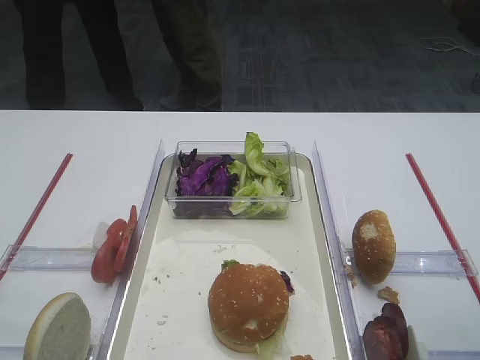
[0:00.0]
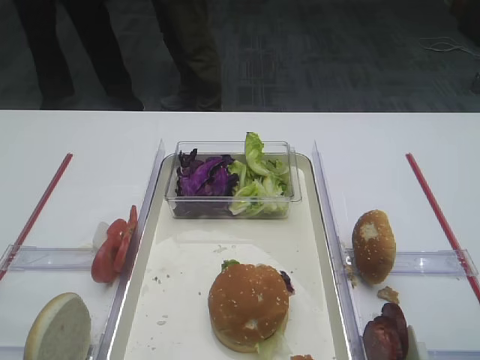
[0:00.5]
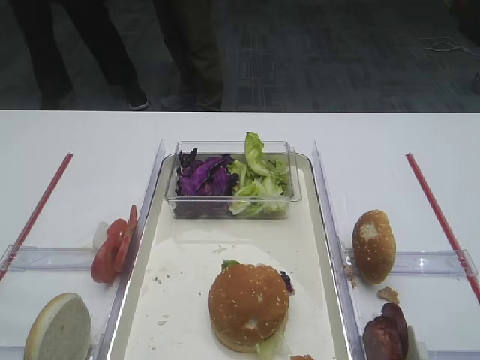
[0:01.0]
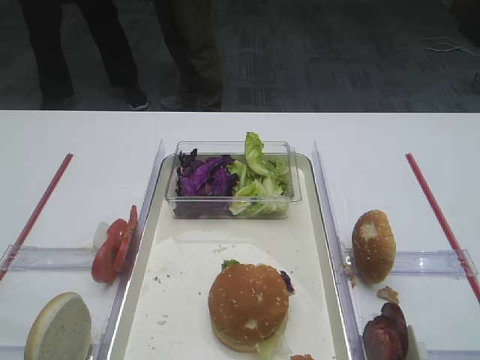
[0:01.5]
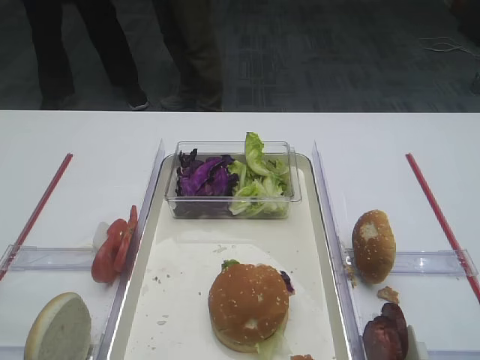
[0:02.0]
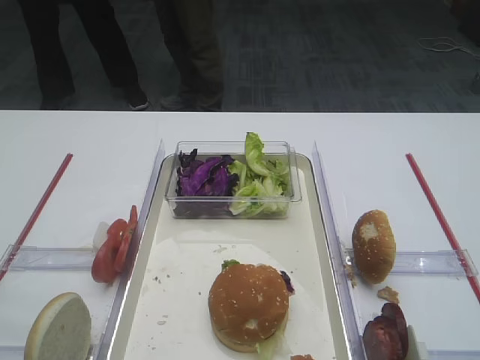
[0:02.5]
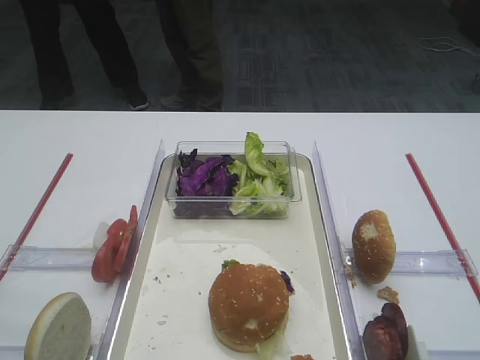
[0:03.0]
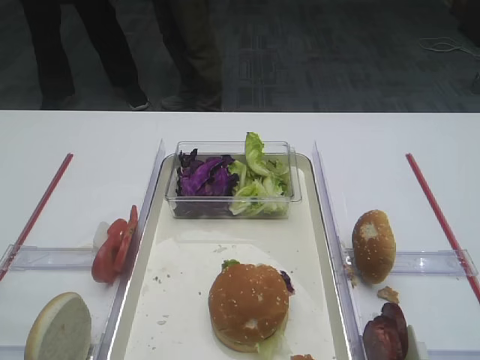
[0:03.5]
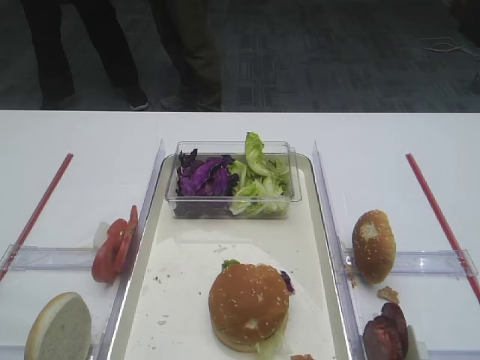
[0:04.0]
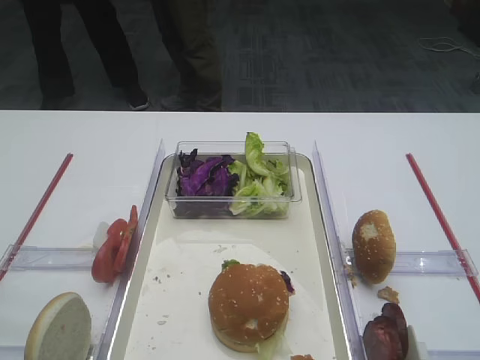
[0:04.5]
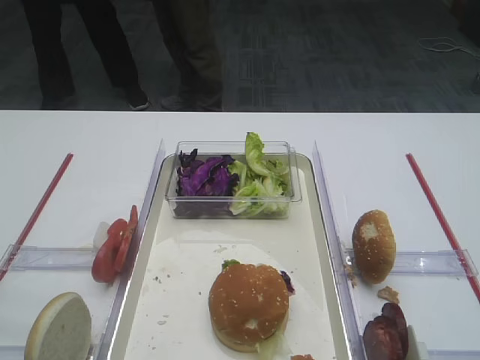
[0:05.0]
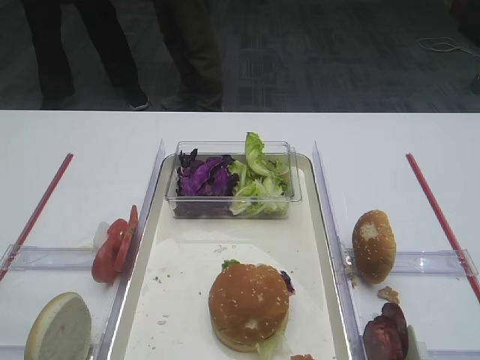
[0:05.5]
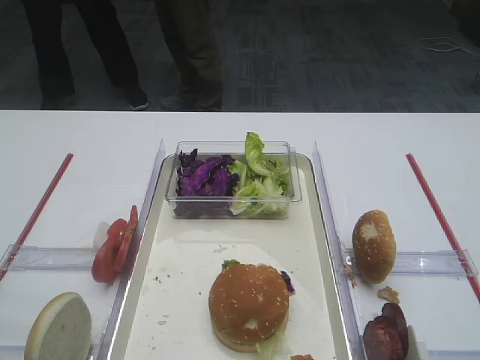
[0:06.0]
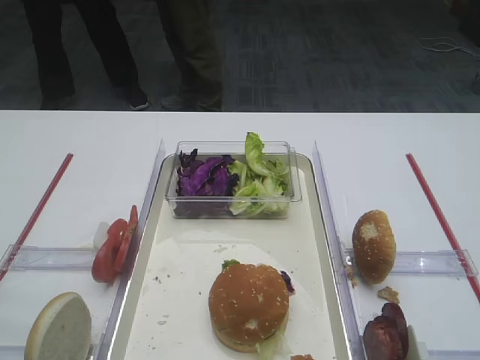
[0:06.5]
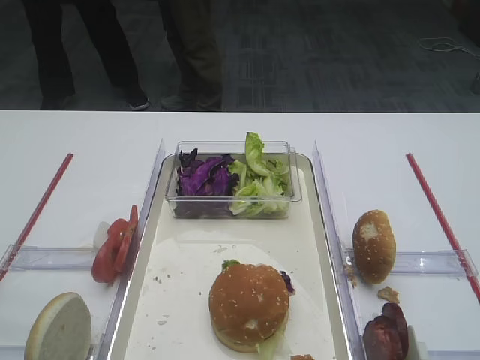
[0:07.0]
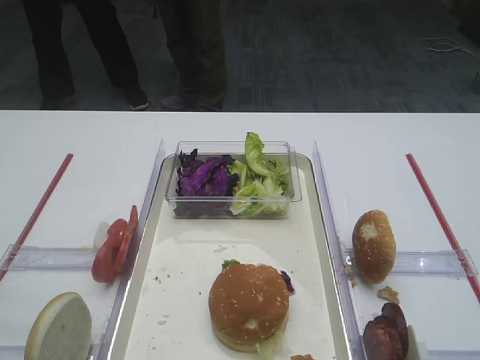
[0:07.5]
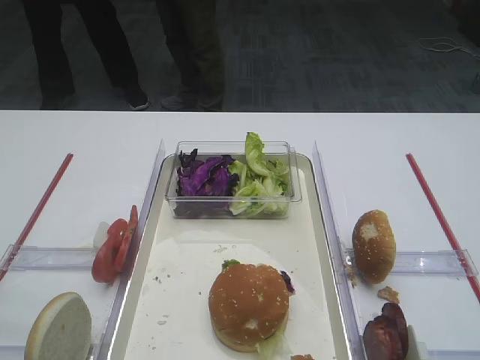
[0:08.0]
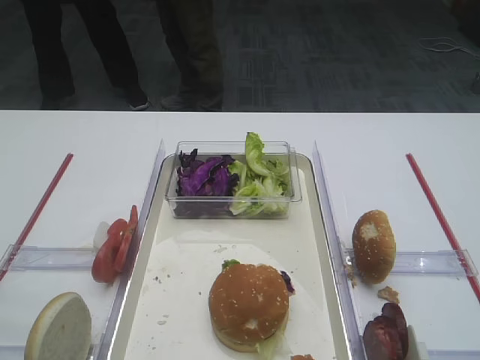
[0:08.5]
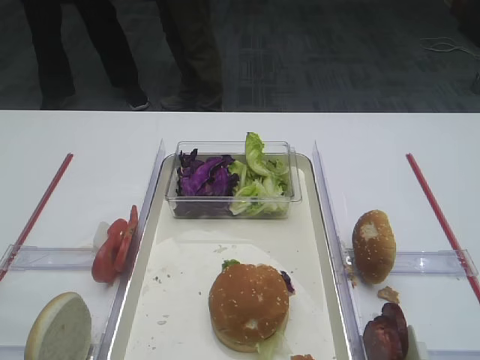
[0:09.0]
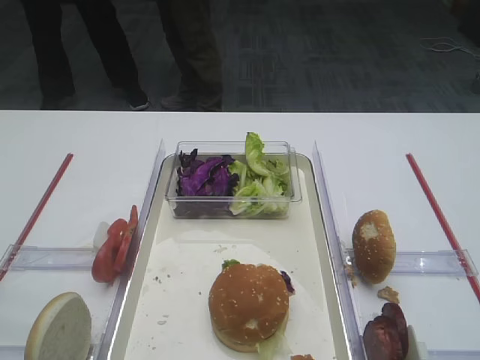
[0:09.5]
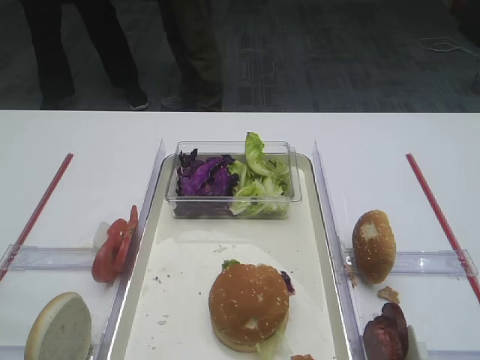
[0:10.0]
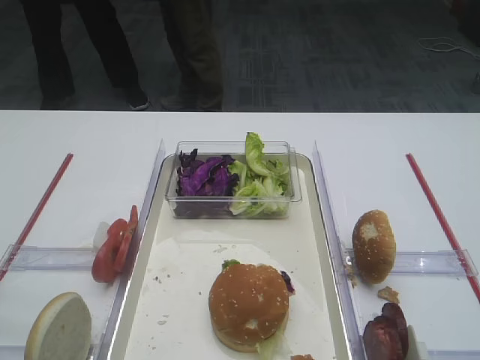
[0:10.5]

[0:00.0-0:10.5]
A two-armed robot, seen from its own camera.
4.0 to 10.5 s: Neither gripper changes place.

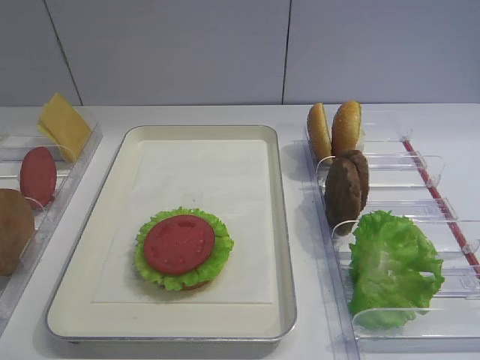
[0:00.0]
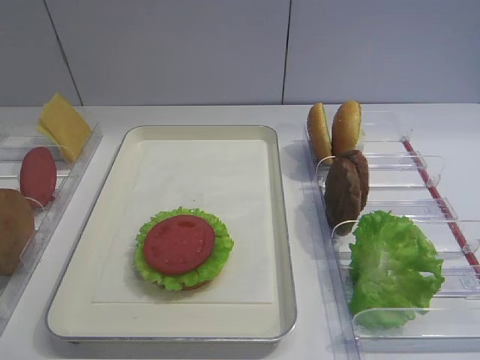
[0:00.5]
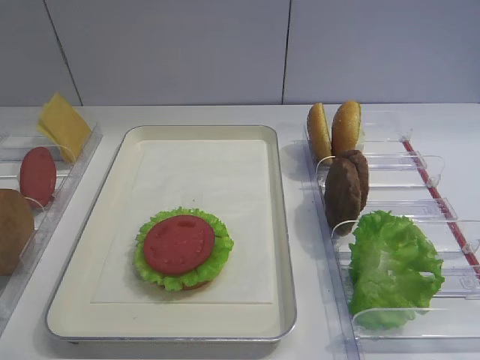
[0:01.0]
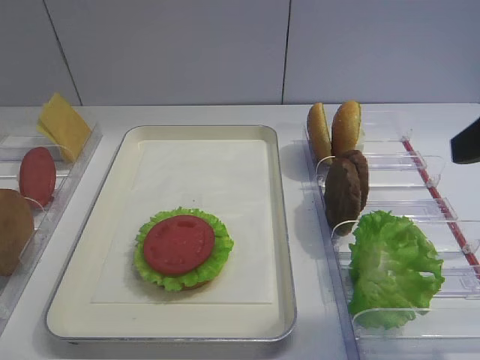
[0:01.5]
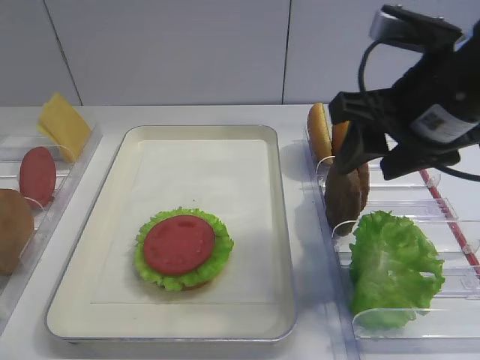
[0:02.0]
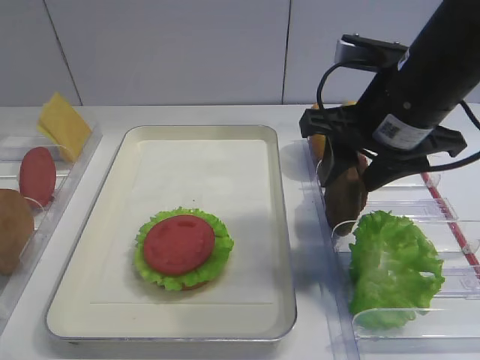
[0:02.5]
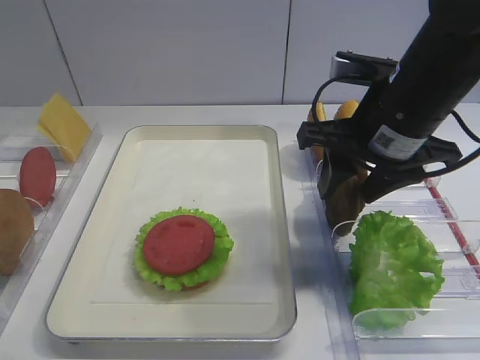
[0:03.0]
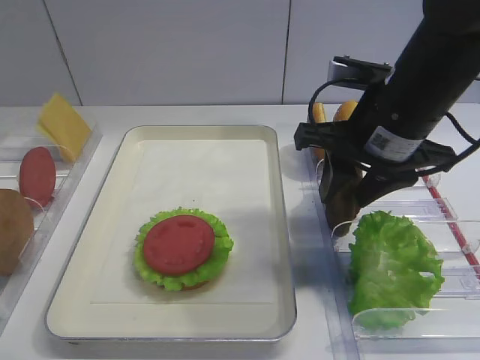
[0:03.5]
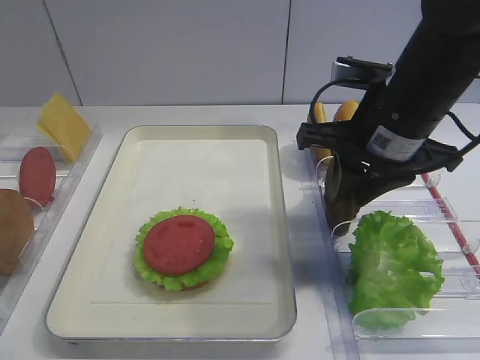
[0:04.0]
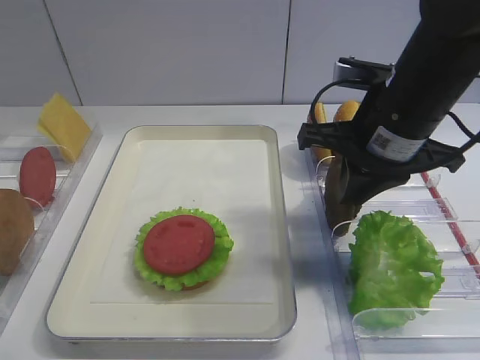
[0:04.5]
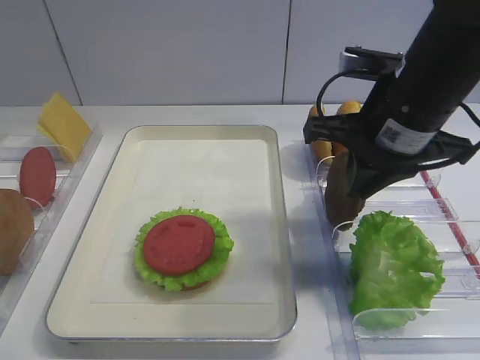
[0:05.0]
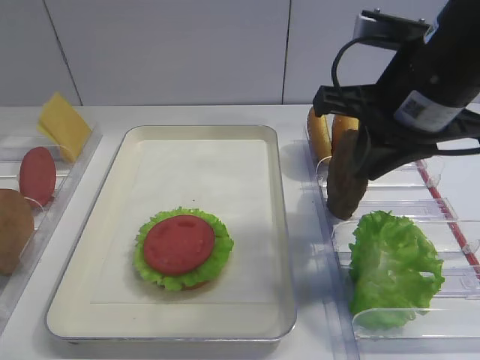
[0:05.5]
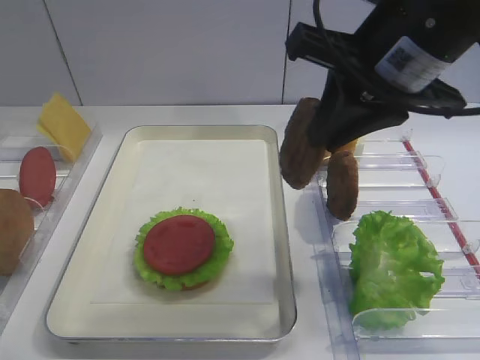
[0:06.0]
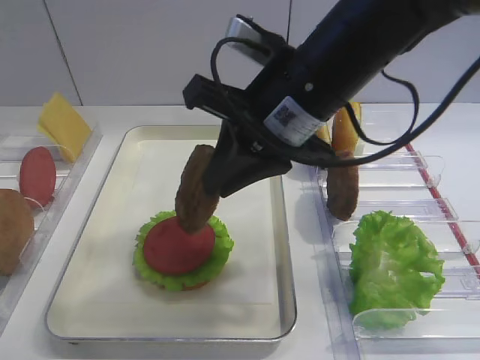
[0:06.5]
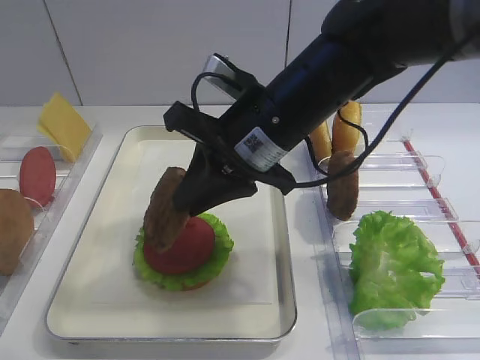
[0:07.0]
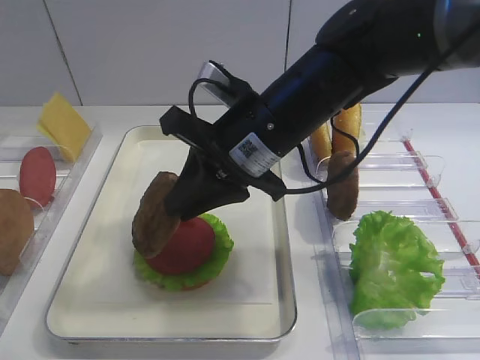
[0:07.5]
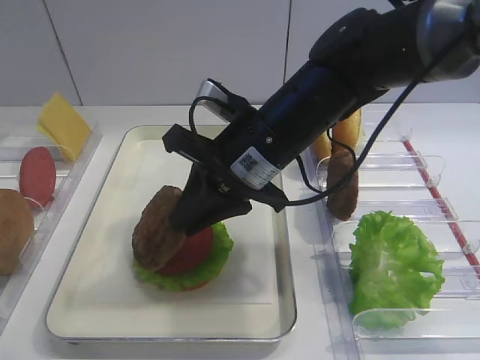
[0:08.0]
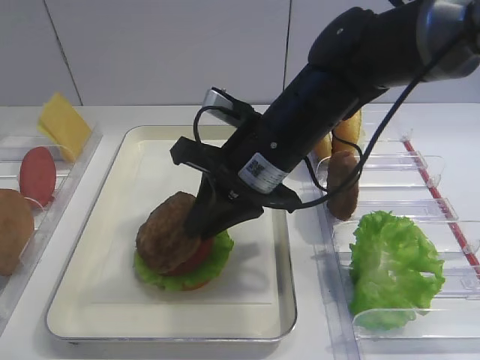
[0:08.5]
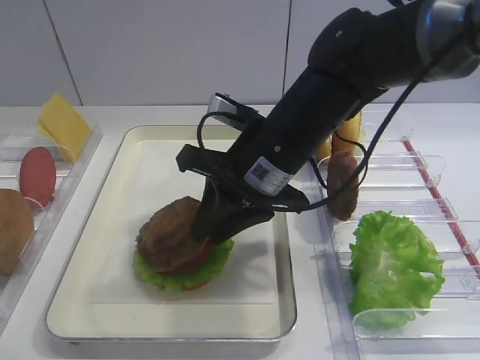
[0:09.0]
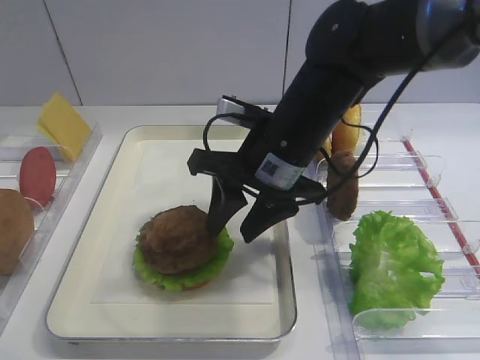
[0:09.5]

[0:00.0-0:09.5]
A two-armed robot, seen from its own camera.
Step, 0.0 to 5.5 s: Pick up the cutlet with the right gripper.
2.0 to 4.0 s: The right gripper moves roughly 5 cm, and closes.
4.0 to 5.5 s: The right gripper moves roughly 5 cm, and closes.
5.5 to 7.5 s: The right gripper shifts roughly 15 cm to the left and downward.
7.5 to 9.5 s: The right gripper opens up.

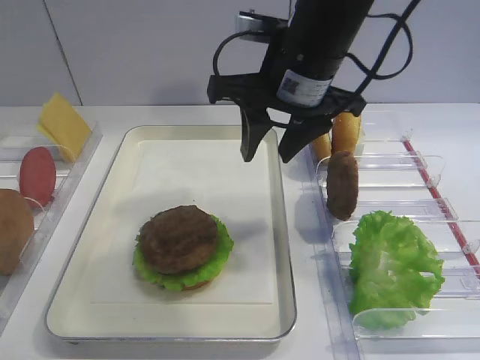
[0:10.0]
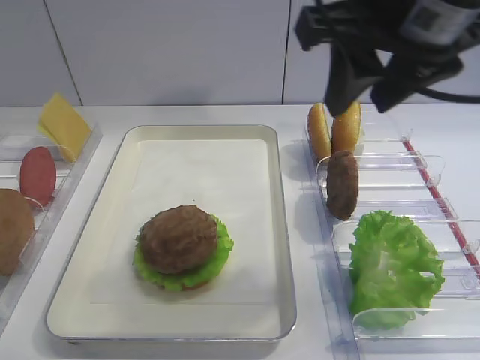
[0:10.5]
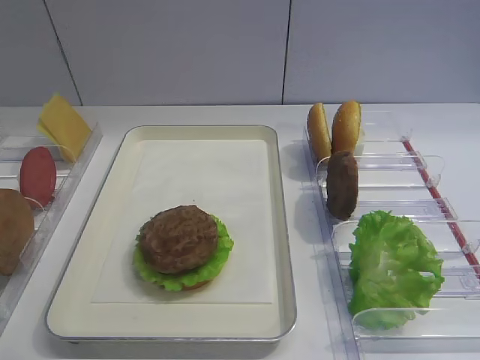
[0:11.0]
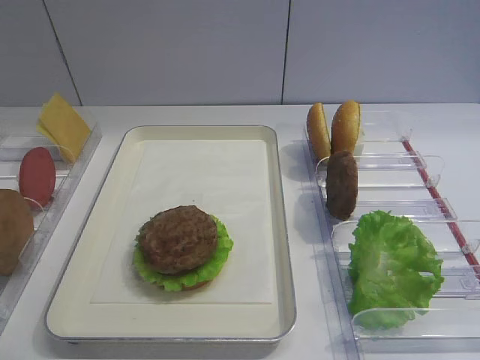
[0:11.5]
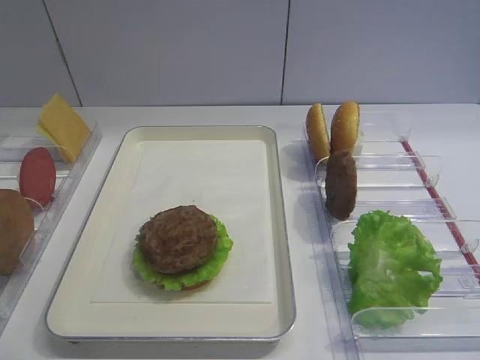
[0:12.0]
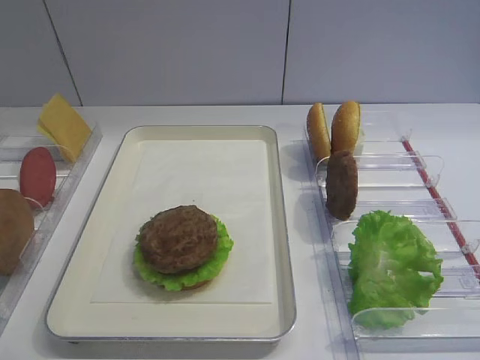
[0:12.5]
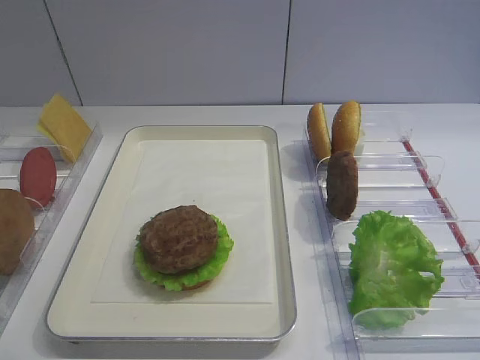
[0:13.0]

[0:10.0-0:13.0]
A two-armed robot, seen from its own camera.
10.0 to 11.5 s: The right gripper travels backward and to the right by about 35 cm.

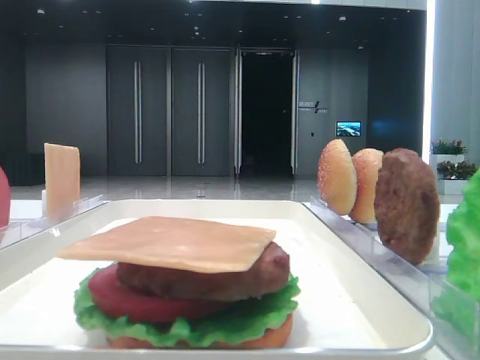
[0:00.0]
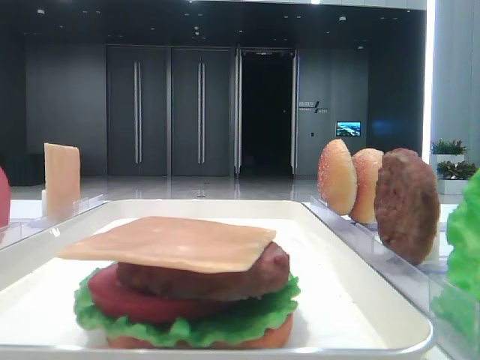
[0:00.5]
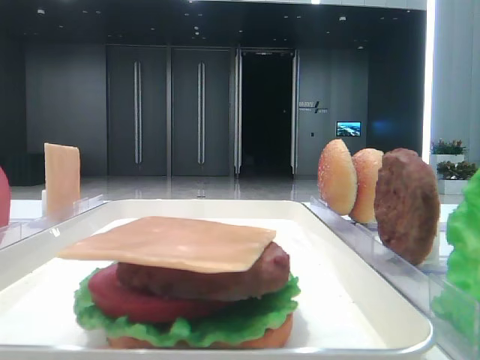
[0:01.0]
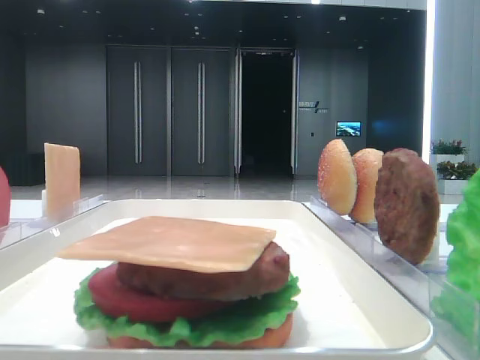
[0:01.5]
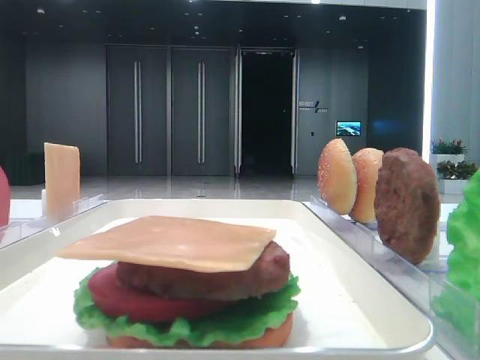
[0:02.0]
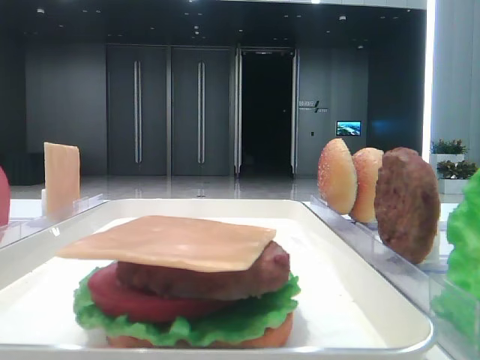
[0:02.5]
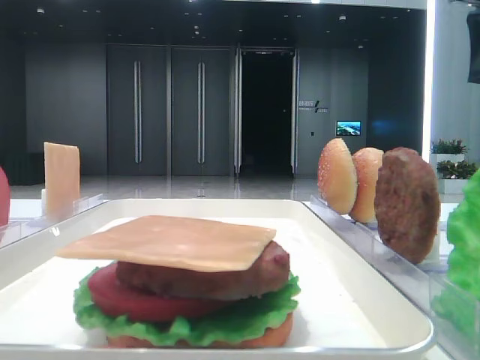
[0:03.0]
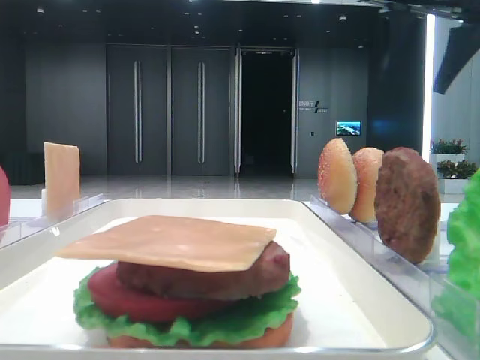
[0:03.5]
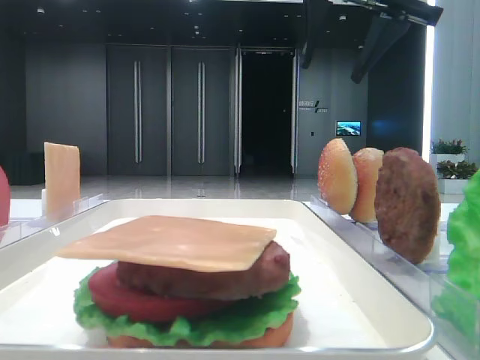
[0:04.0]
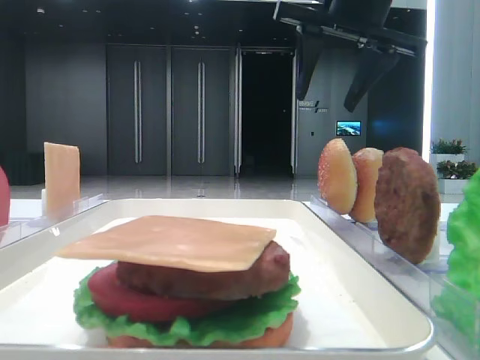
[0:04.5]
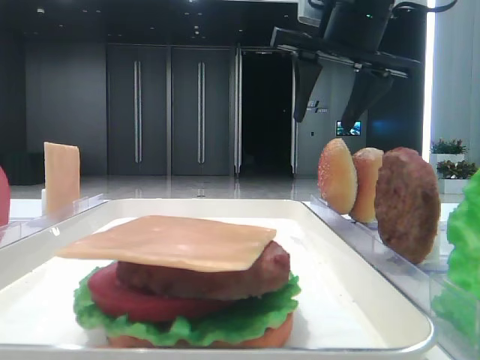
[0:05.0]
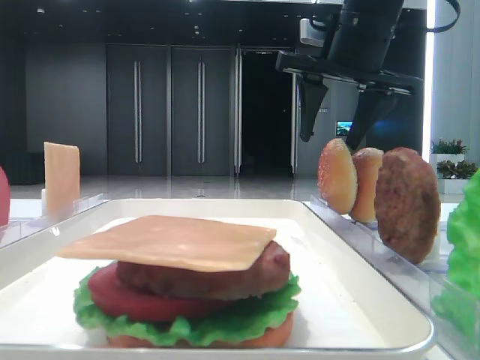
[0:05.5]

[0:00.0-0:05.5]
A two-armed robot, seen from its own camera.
2.0 to 3.5 s: The right gripper heads forward and to the left, covering approximately 20 cm.
3.5 to 5.5 s: The right gripper travels to the left and downward by approximately 10 cm.
